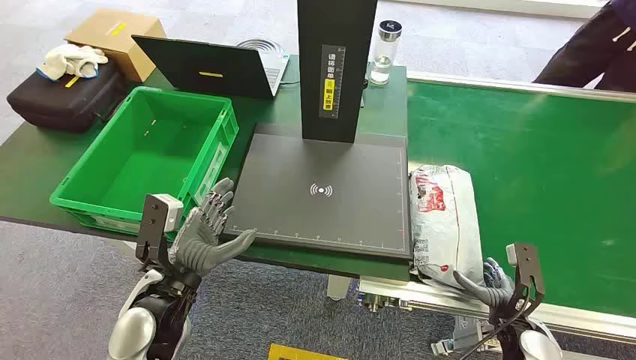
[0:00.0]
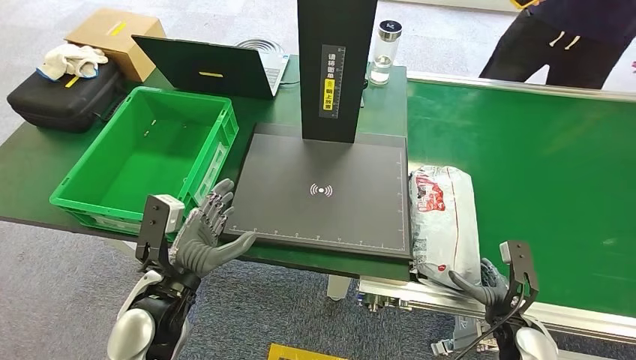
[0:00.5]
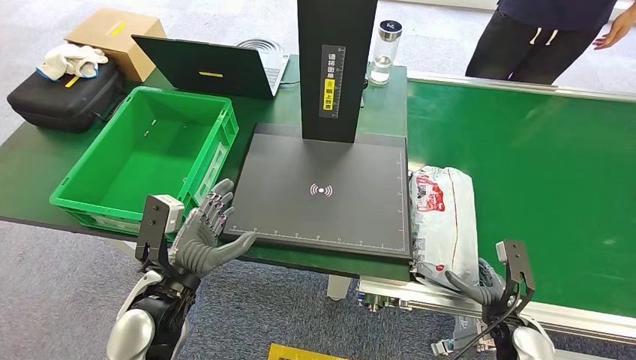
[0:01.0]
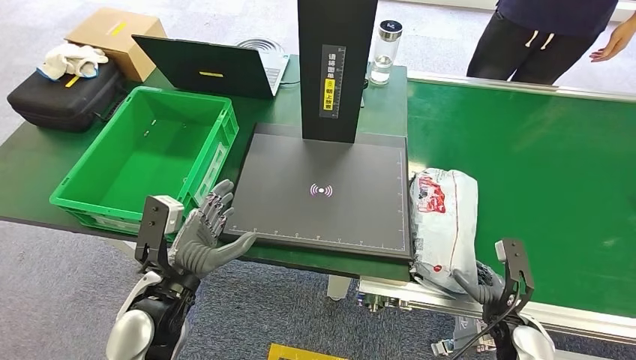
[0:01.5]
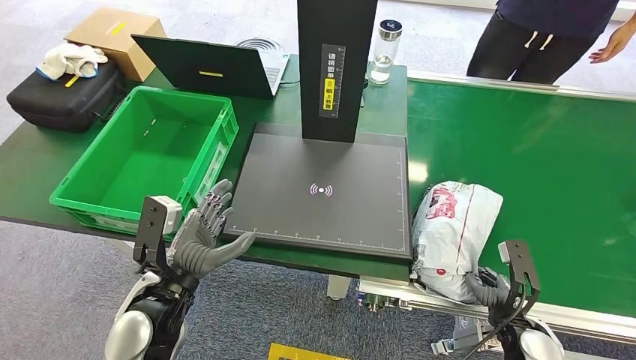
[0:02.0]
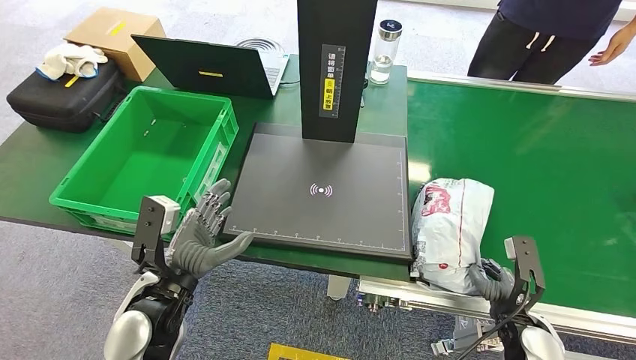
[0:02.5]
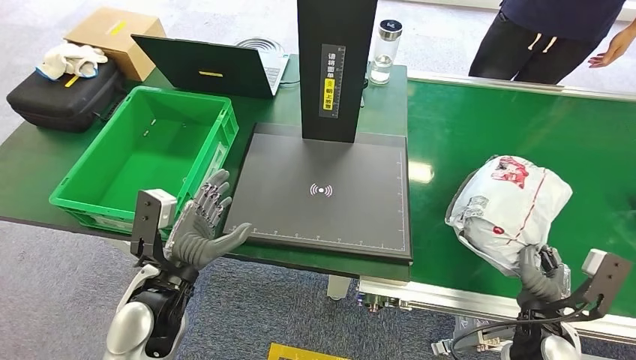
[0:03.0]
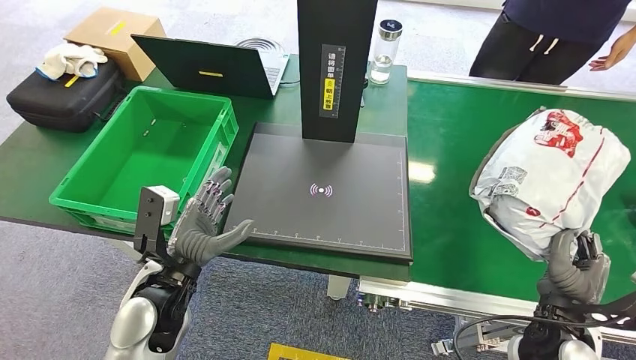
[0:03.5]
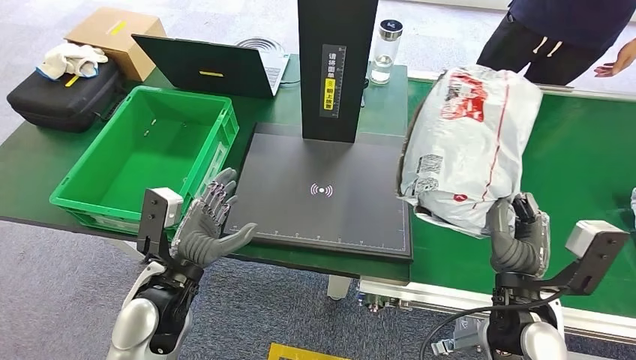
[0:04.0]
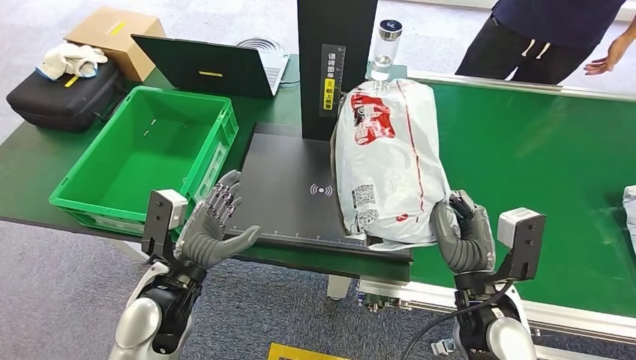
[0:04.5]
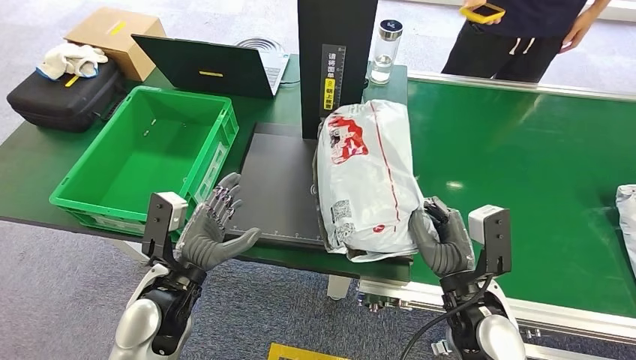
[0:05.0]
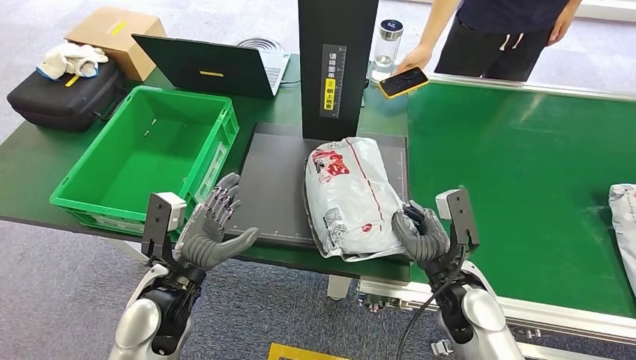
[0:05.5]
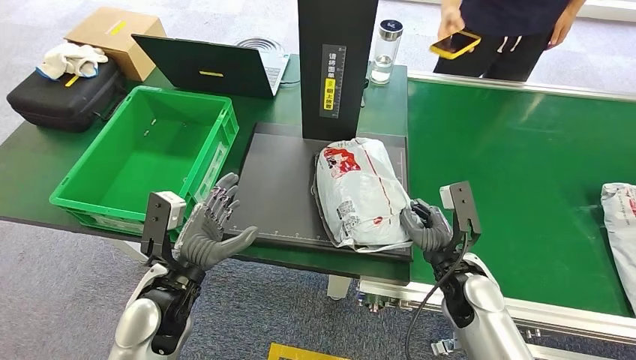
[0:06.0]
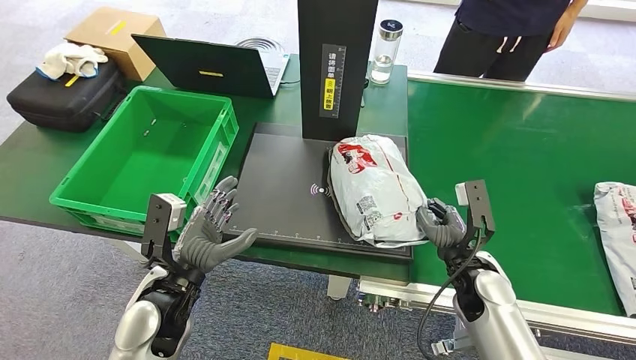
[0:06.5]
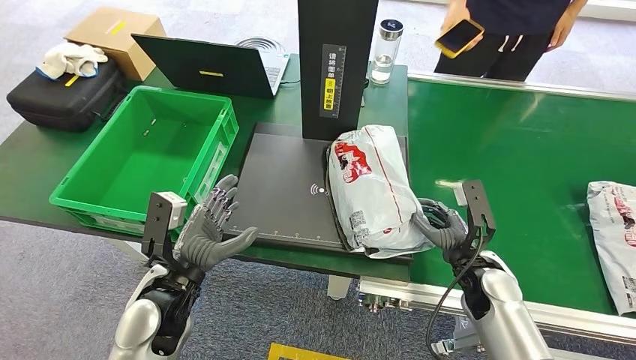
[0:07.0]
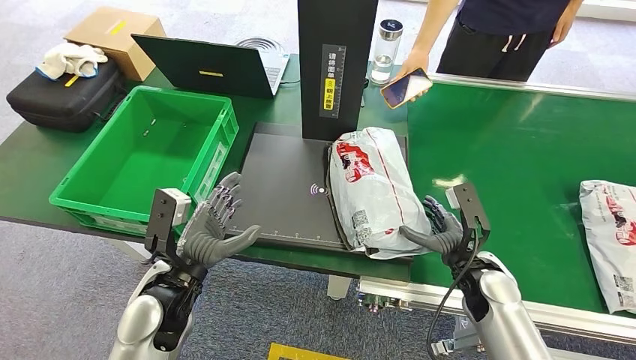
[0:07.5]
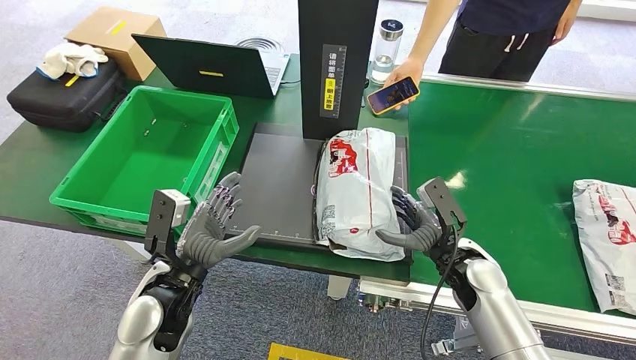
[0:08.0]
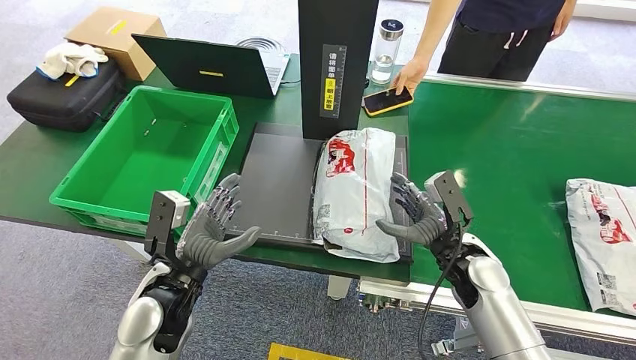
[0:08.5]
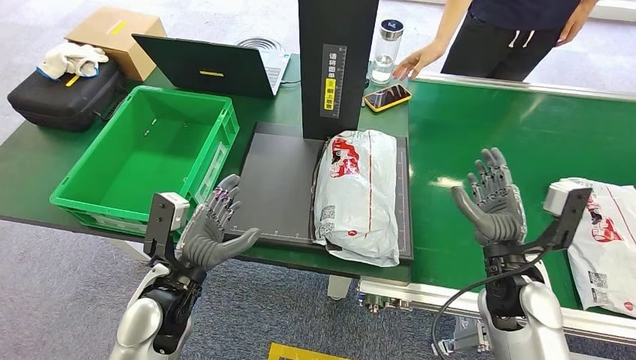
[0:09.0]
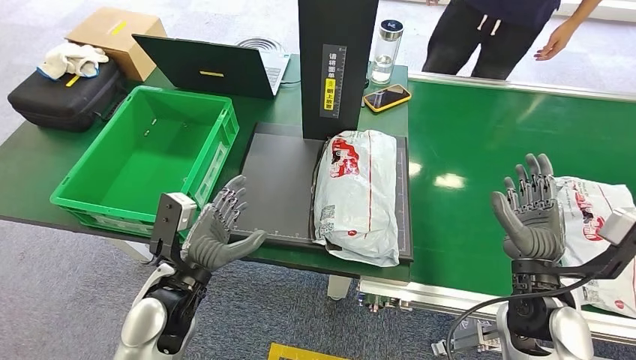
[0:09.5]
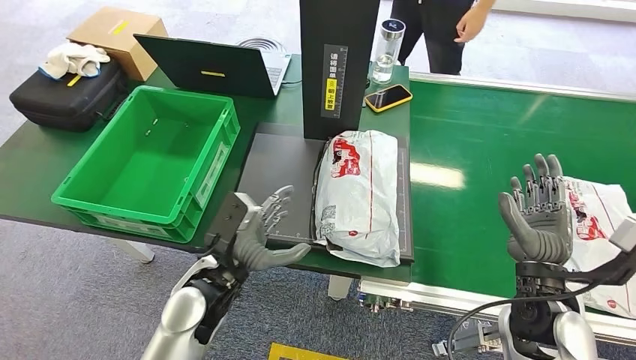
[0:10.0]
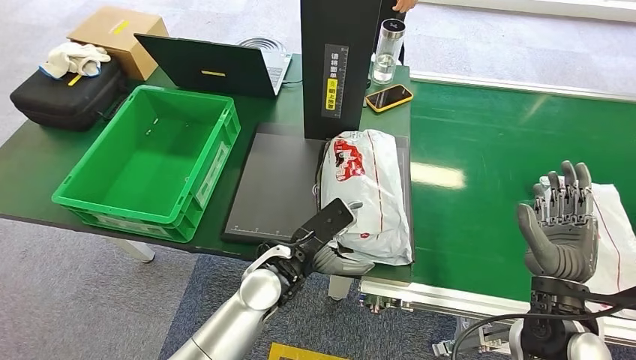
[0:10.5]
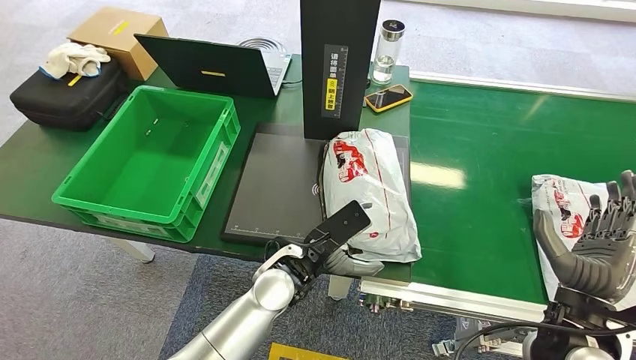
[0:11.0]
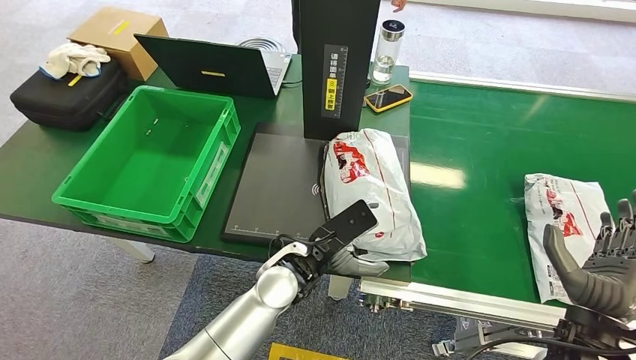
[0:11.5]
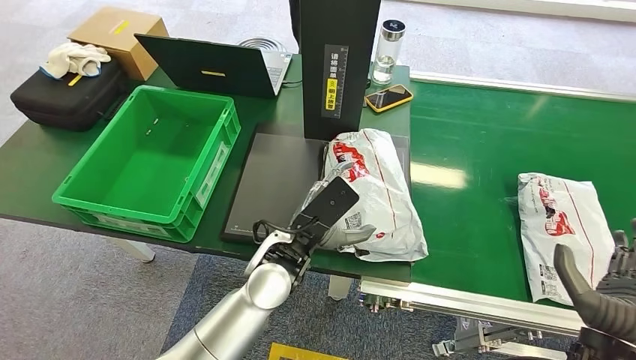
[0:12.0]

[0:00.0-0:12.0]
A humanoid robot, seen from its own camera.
Step, 0:00.0 to 0:03.5: Pick up the package from the conveyor belt.
Step, 0:04.0 to 0:08.0: Place the package onto the inbound machine.
0:06.0 to 0:08.0: The hands stay close to where they were, moving slightly.

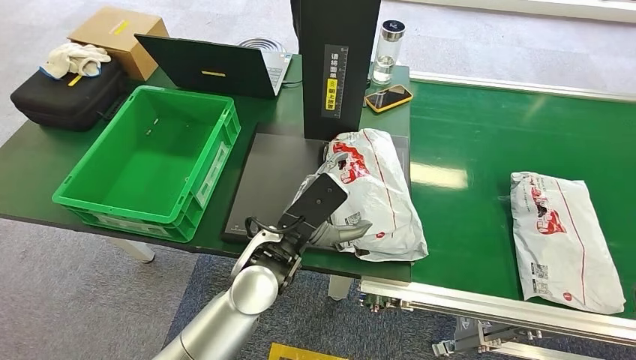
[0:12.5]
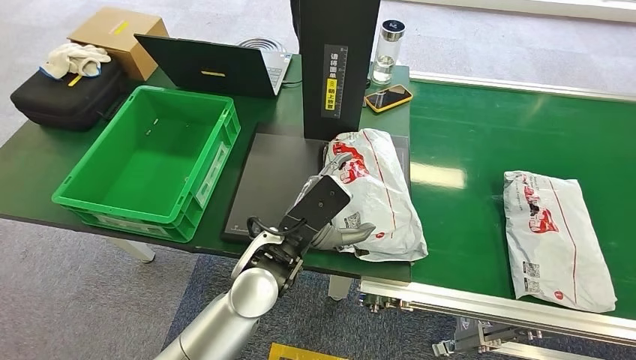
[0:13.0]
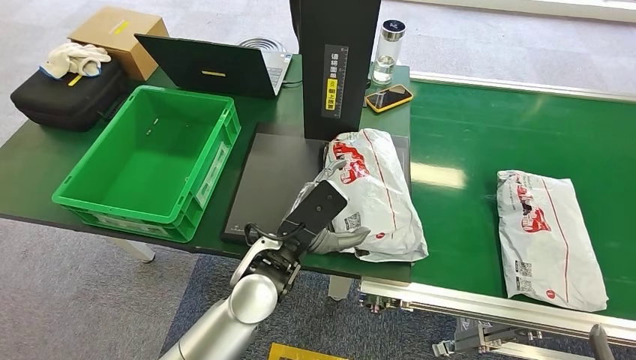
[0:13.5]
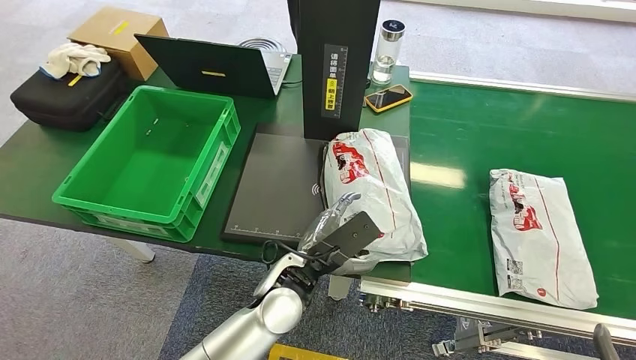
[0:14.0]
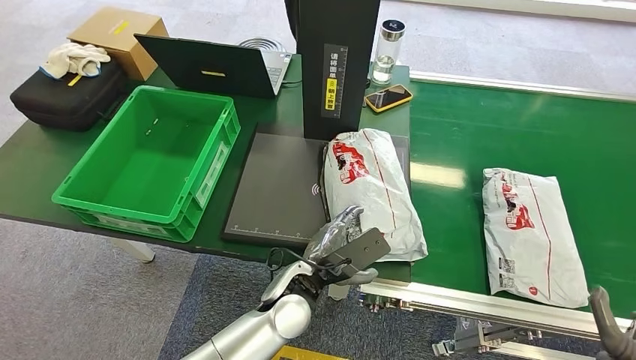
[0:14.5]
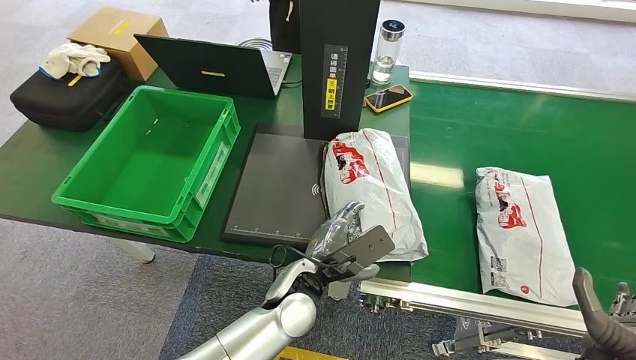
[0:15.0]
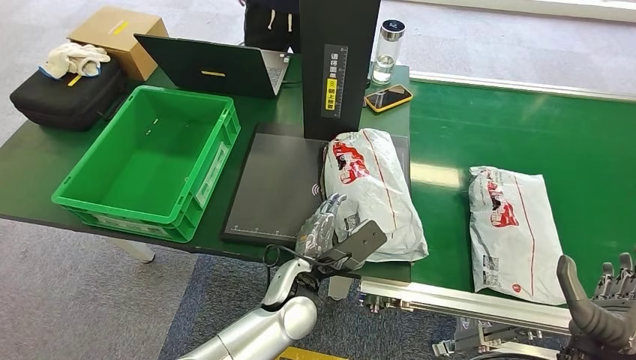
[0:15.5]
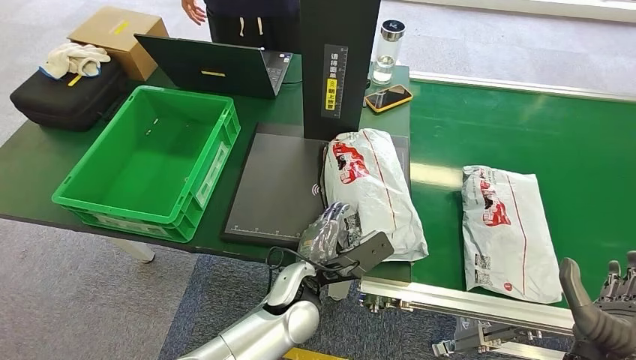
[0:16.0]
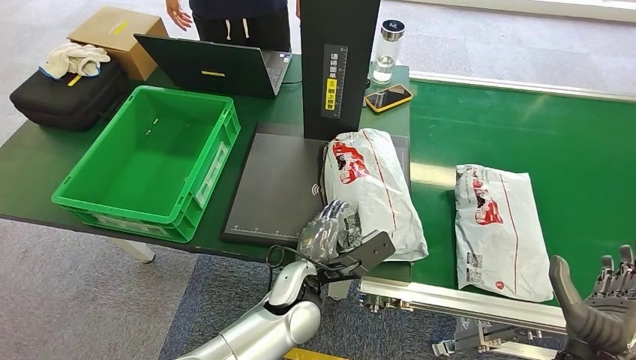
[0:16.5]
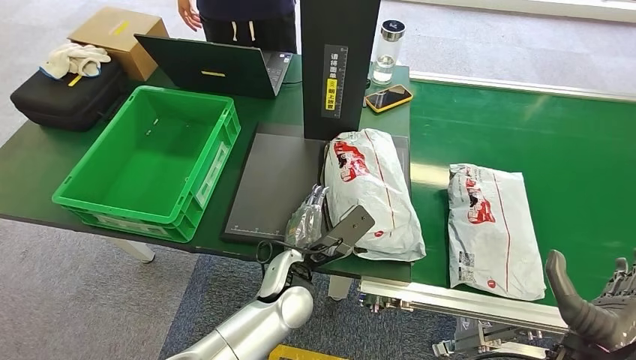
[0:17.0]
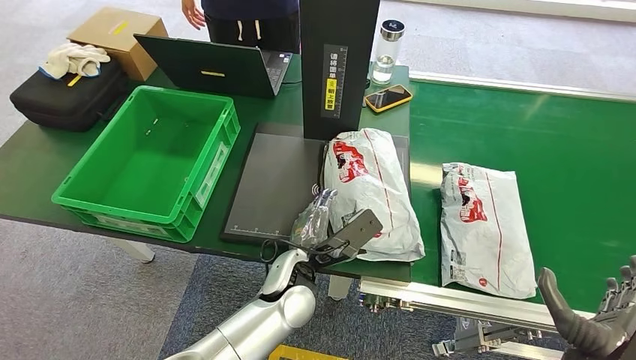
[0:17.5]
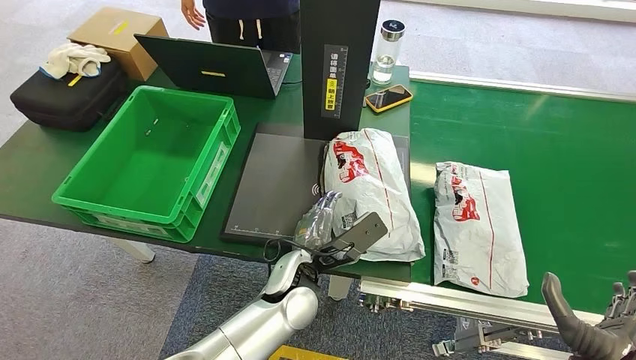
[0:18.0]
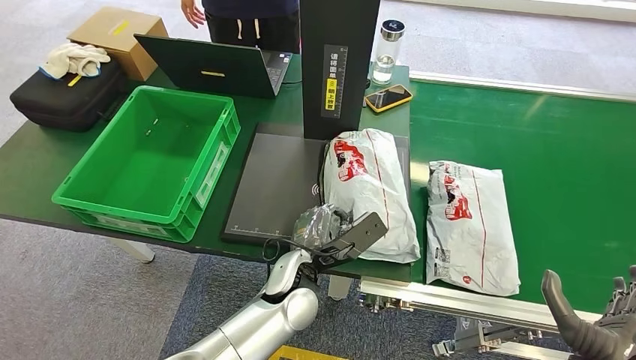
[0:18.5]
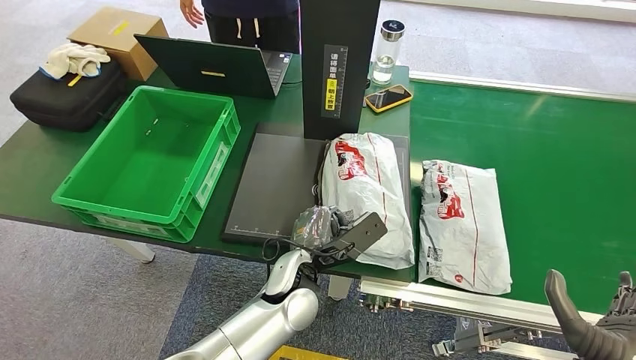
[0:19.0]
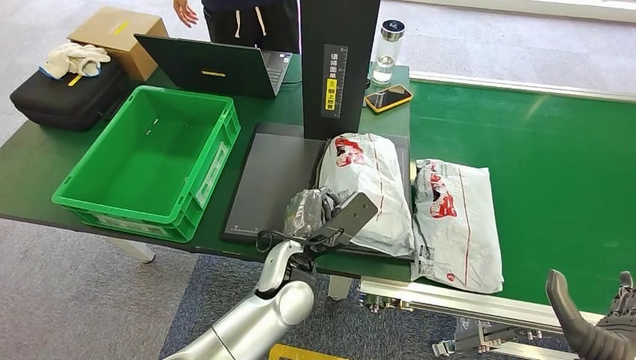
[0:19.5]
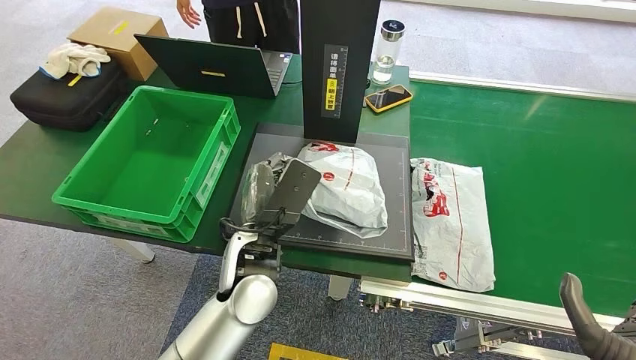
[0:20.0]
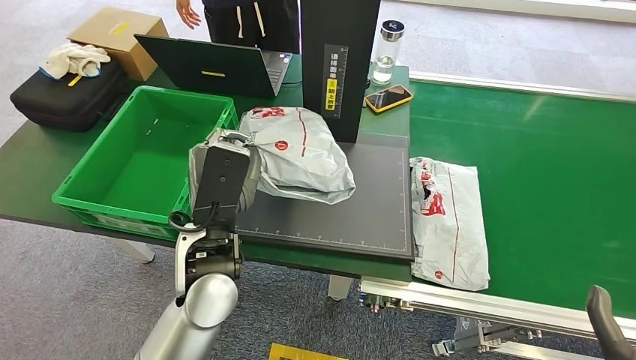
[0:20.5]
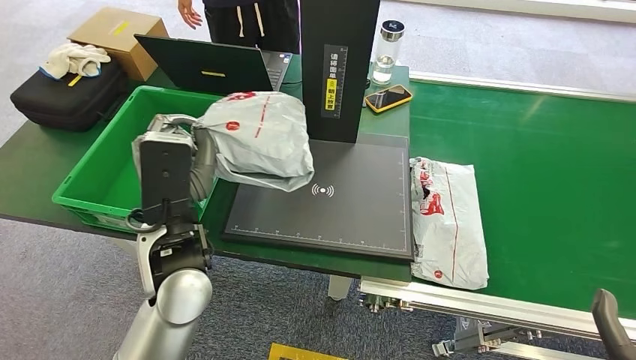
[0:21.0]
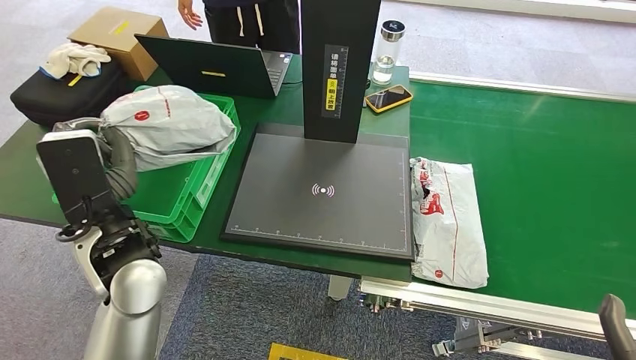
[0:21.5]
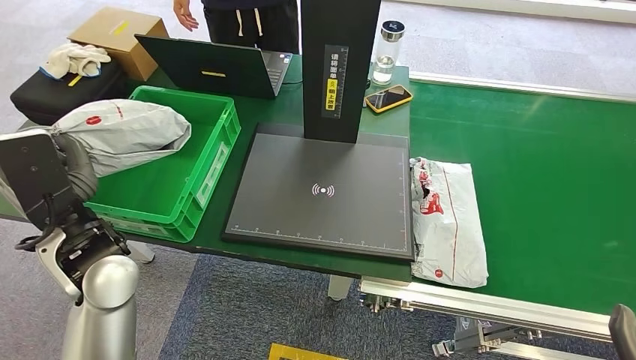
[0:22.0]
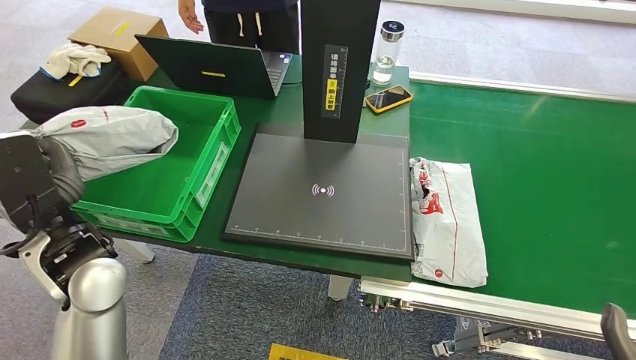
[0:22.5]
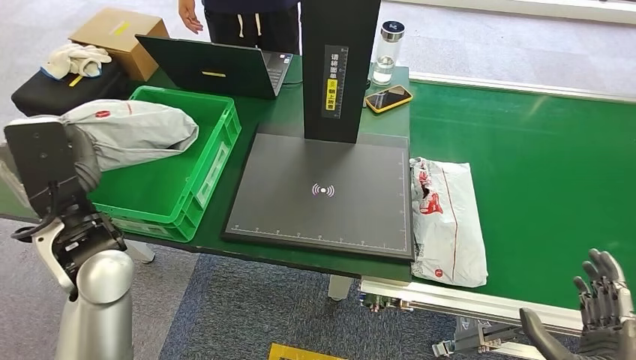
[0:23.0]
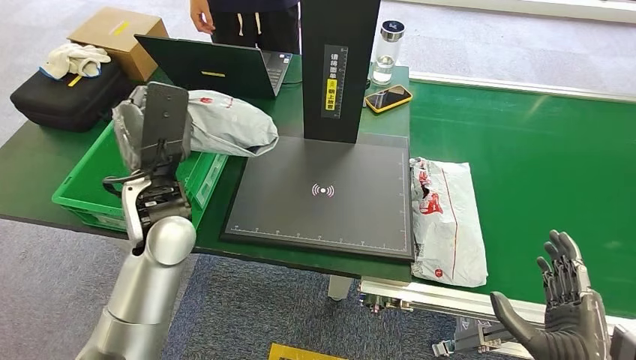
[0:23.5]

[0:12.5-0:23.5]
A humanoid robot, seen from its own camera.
Step, 0:17.5 to 0:20.5: Pick up the package from the inbound machine.
0:12.5 to 0:14.5: Both hands move downward, about 10 cm.
0:14.5 to 0:16.0: The right hand travels upward by roughly 5 cm.
0:16.0 to 0:18.0: The hands move only a little.
0:18.0 to 0:20.0: The left hand goes approximately 5 cm upward.
0:21.5 to 0:23.5: The left hand is displaced forward by some 5 cm, and travels to the left and back again, about 5 cm each way.
